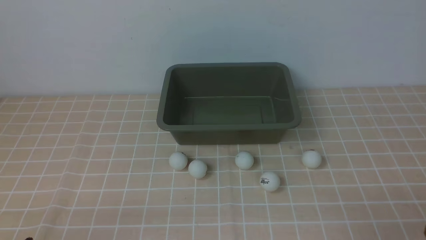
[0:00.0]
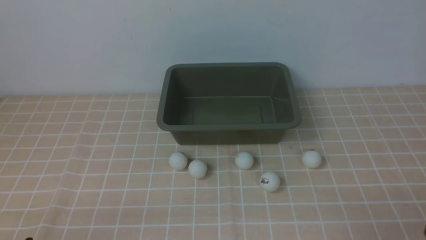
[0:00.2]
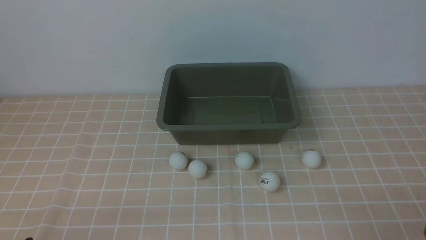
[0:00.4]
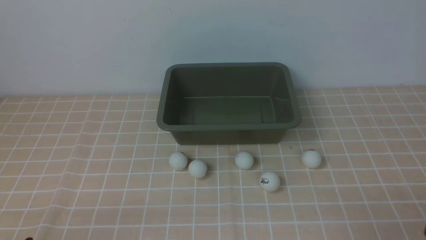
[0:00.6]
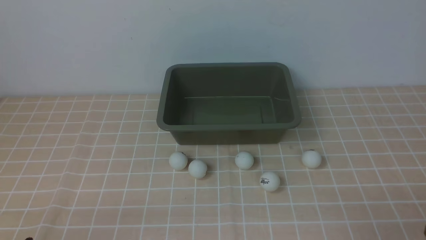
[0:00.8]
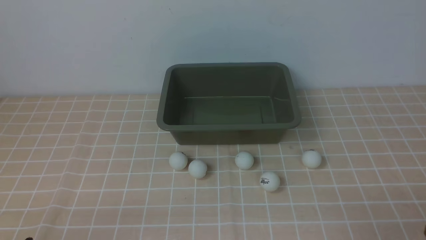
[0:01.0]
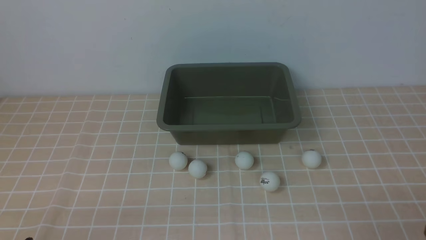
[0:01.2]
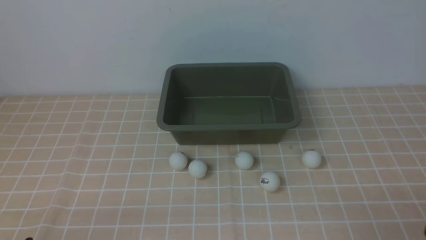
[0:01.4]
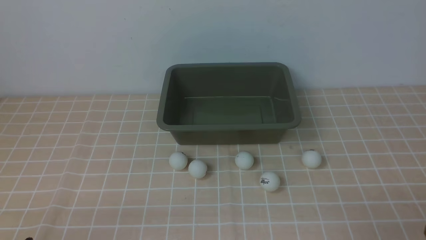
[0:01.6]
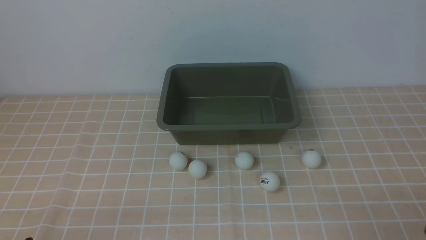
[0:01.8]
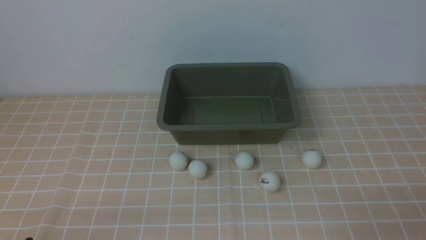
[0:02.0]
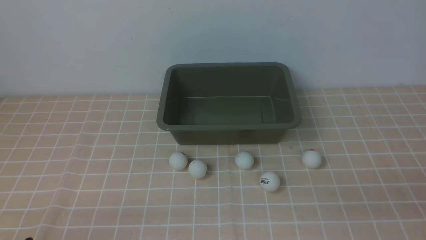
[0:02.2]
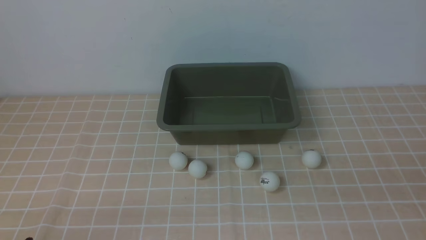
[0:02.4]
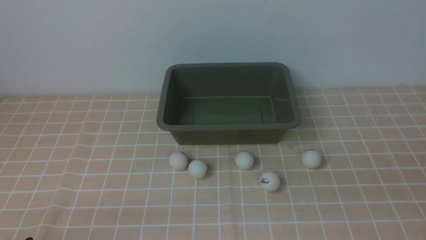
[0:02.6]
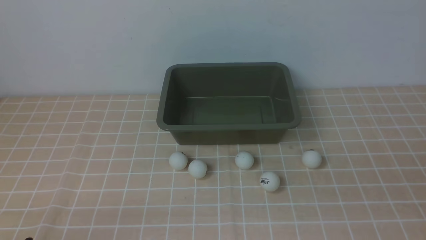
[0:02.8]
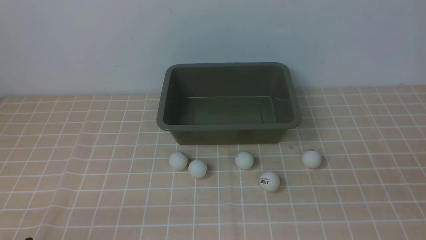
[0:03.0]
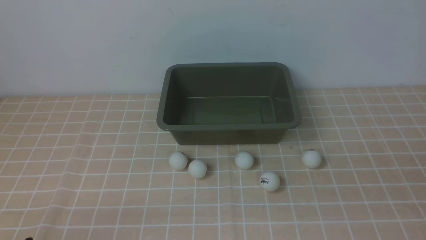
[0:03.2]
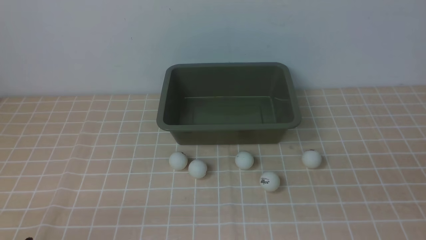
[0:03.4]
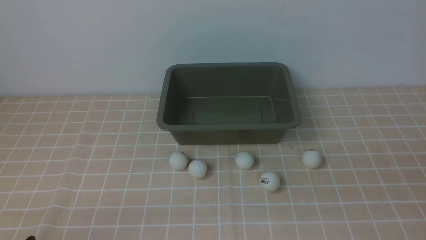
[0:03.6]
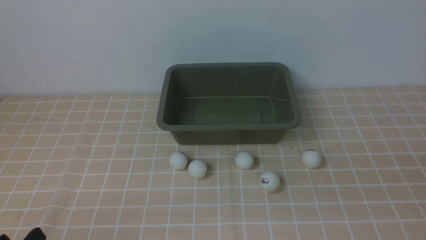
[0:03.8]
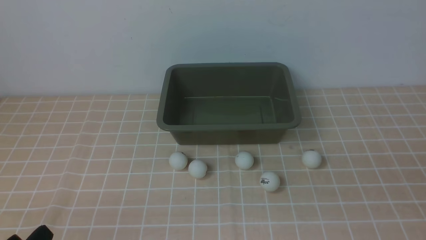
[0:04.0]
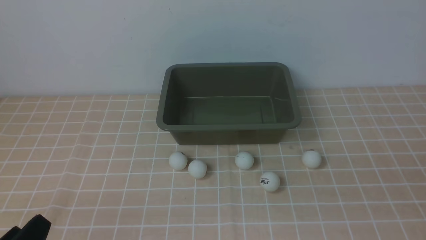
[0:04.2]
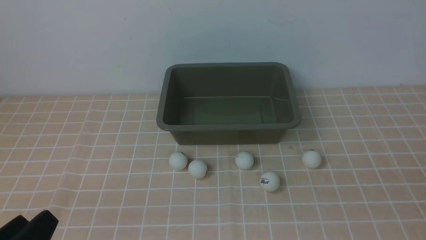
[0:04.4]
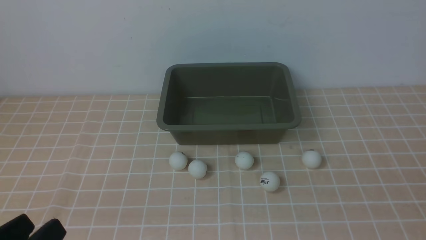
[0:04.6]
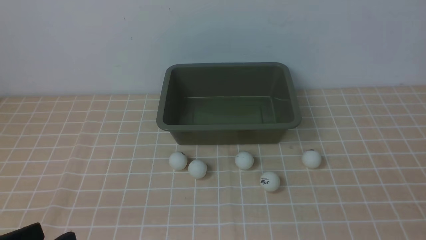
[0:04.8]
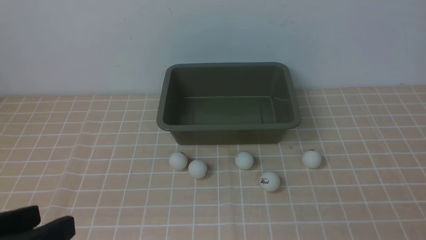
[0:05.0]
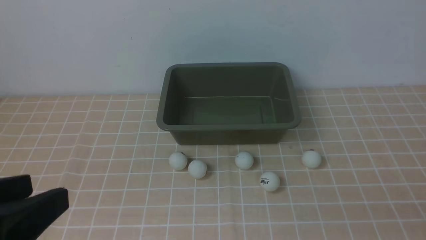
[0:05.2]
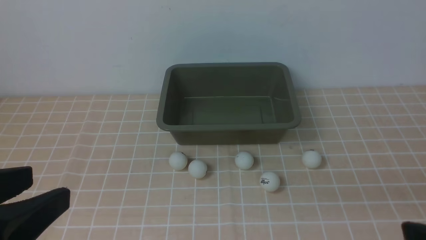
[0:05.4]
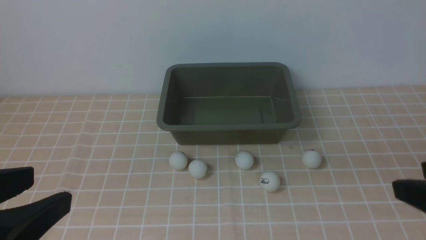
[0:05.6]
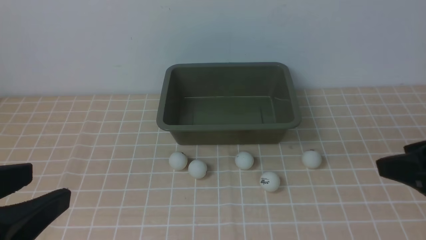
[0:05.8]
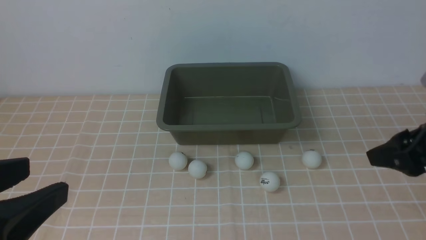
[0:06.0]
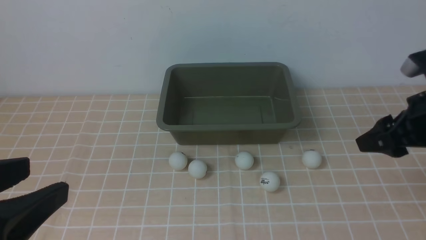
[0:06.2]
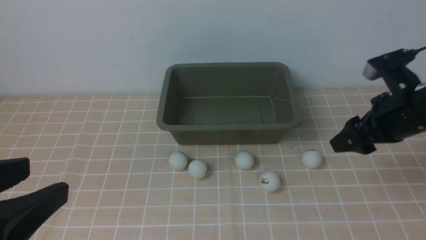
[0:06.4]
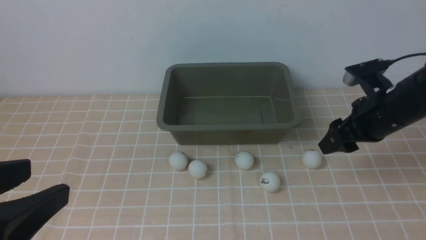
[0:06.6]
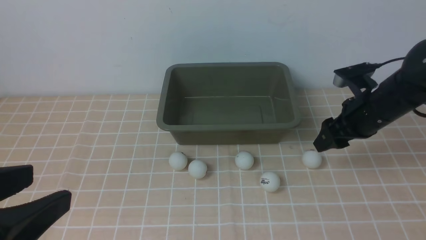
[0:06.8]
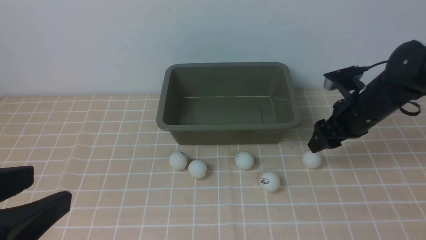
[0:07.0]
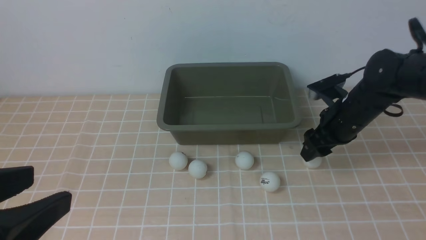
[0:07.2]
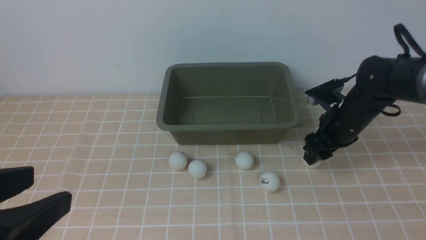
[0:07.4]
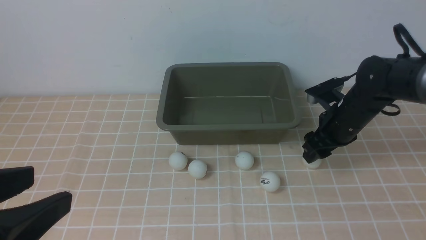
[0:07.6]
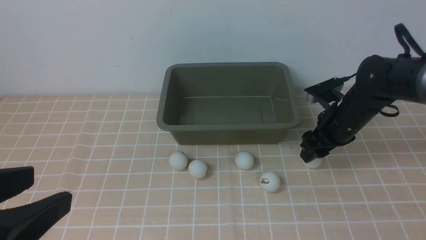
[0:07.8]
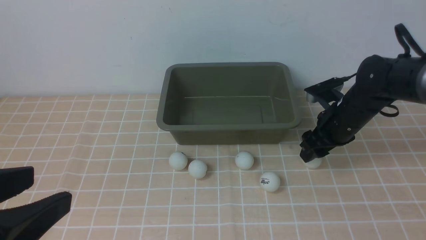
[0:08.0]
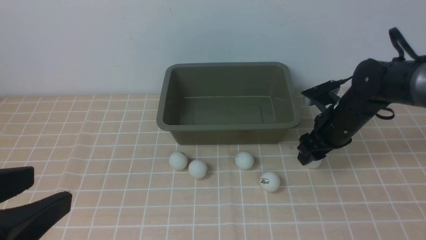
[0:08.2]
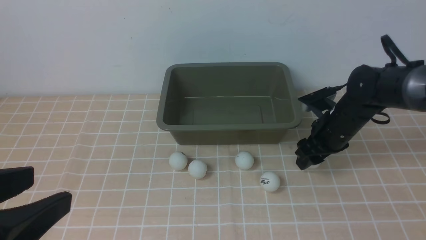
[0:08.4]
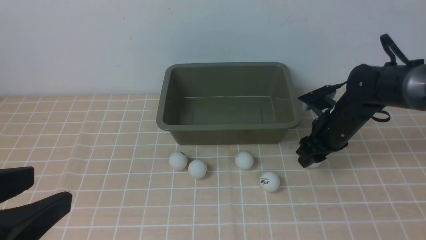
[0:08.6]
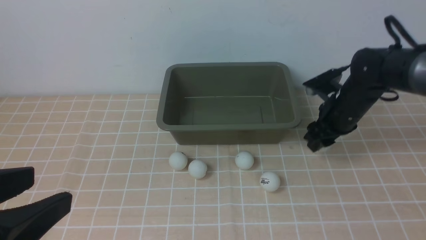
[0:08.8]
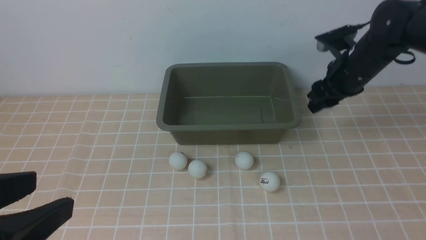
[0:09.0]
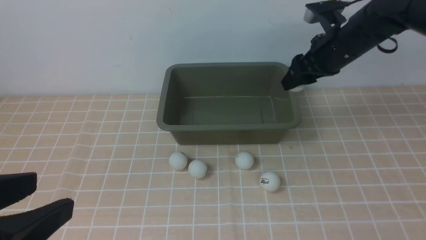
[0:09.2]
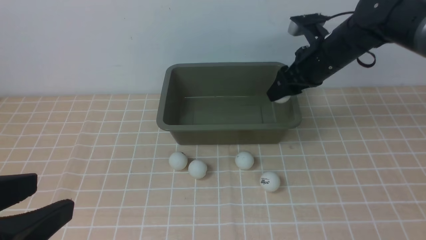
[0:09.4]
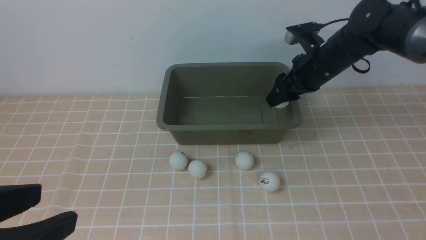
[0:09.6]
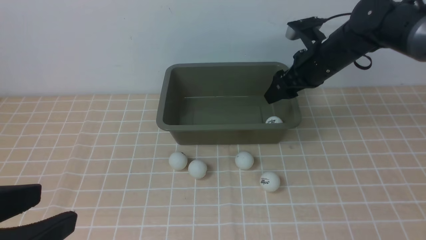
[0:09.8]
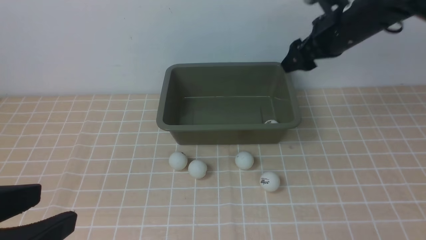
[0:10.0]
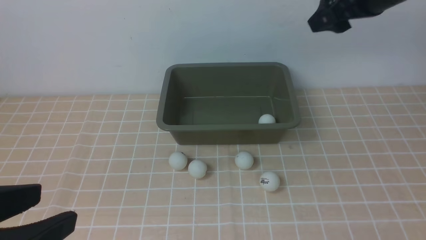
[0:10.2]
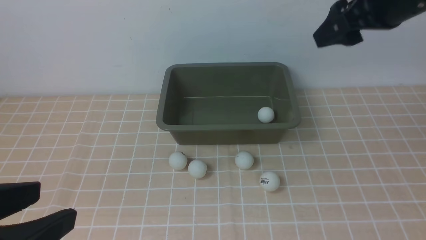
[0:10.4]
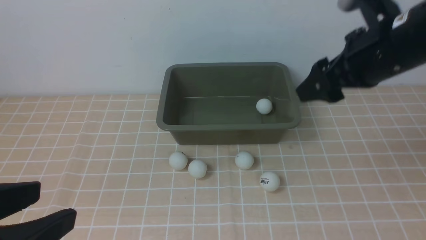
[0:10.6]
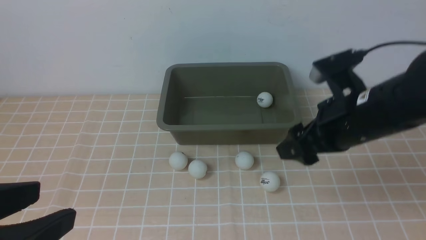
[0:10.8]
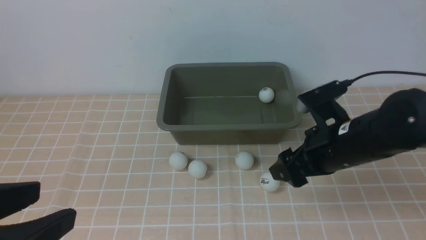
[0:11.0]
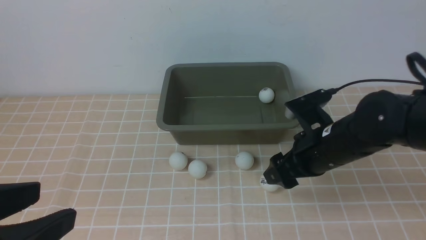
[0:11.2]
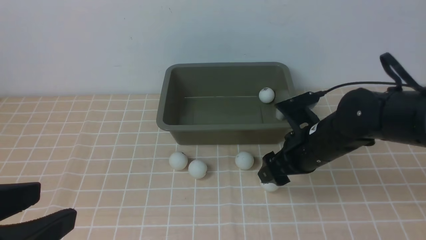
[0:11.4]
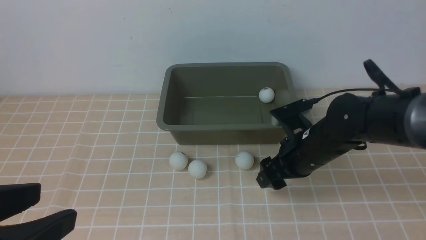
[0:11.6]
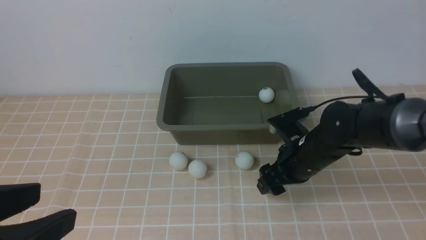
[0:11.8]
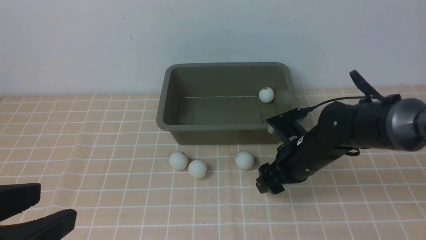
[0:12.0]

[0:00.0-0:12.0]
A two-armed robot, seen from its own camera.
Step, 0:00.0 to 0:08.2: use the right arm to clamp the table tennis ball closest to it.
Step, 0:08.4 to 0:10.0: use the right arm to put the table tennis ball into the box.
0:00.0 to 0:01.6: The two grippers keep their place.
0:03.0 to 0:04.4: The left gripper heads upward, covering roughly 5 cm.
0:04.4 to 0:06.0: The right gripper travels forward by some 20 cm. Meanwhile the left gripper moves upward, about 15 cm.
0:06.0 to 0:07.6: The right gripper goes some 20 cm forward and downward.
0:07.6 to 0:09.0: The right gripper travels upward by approximately 5 cm, and closes its fingers.
0:09.0 to 0:10.4: The right gripper travels upward and backward by roughly 15 cm, and opens up.
0:10.4 to 0:12.0: The right gripper travels downward by approximately 25 cm, and closes its fingers.

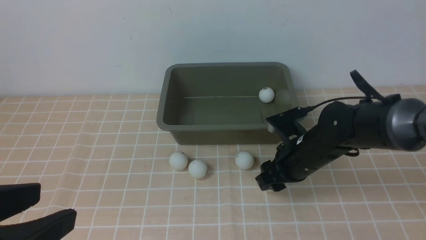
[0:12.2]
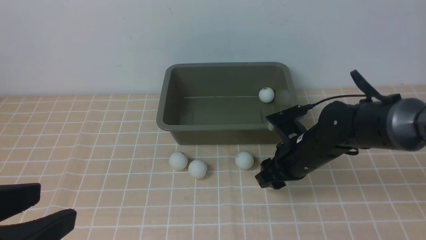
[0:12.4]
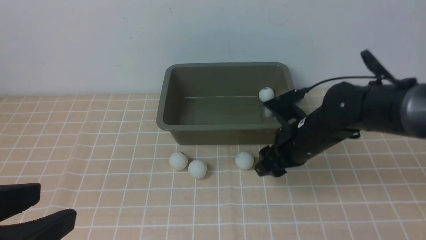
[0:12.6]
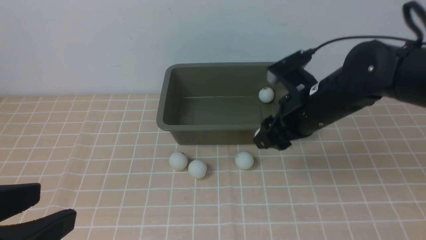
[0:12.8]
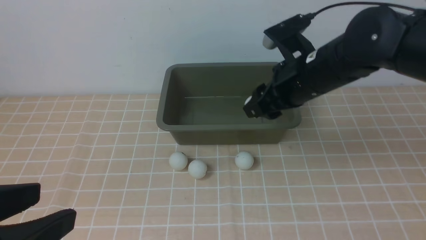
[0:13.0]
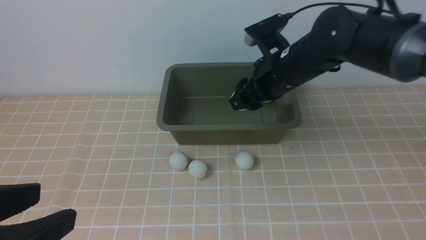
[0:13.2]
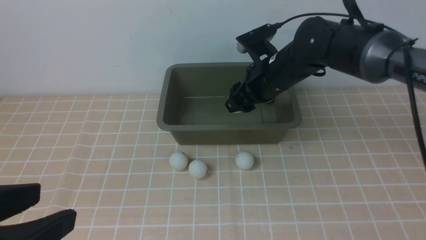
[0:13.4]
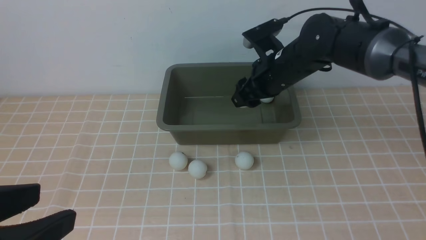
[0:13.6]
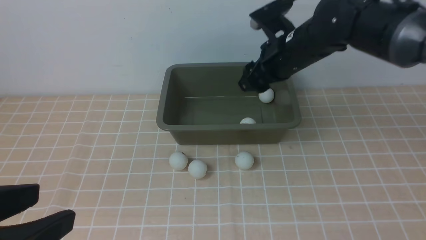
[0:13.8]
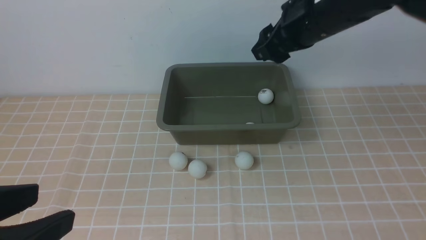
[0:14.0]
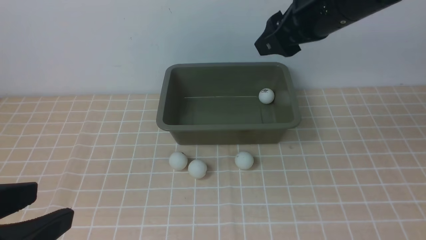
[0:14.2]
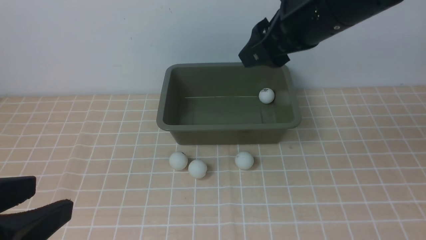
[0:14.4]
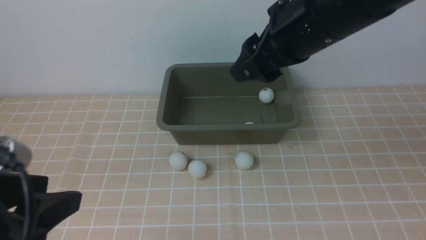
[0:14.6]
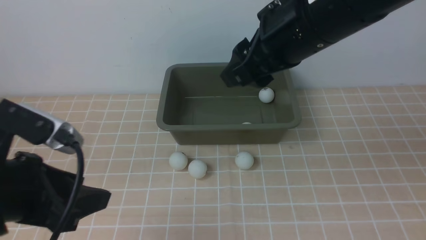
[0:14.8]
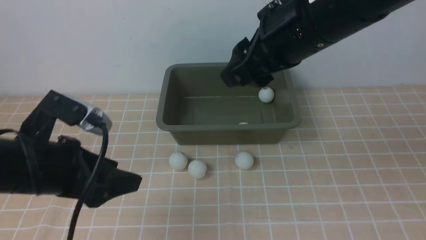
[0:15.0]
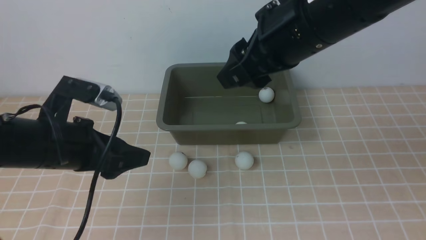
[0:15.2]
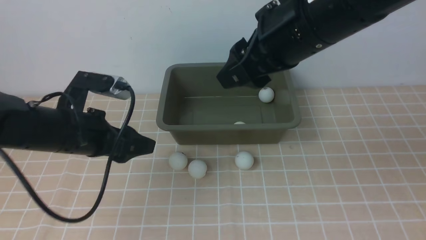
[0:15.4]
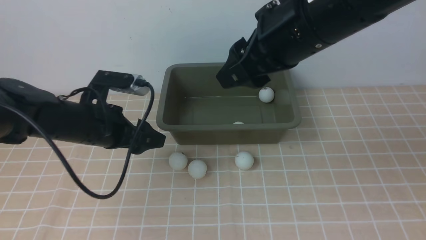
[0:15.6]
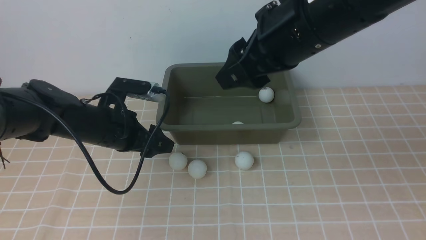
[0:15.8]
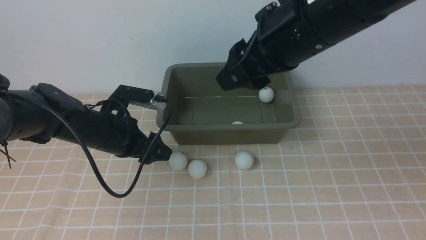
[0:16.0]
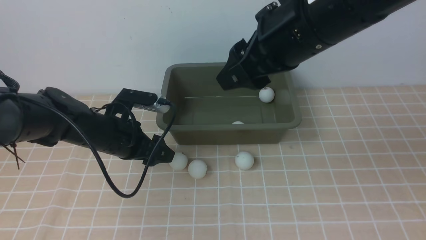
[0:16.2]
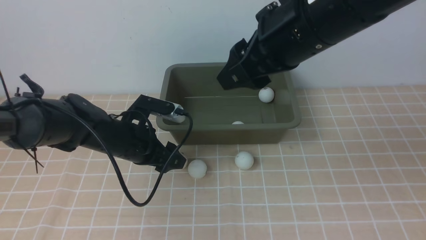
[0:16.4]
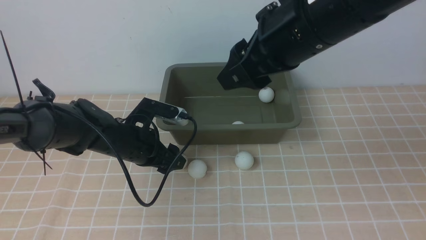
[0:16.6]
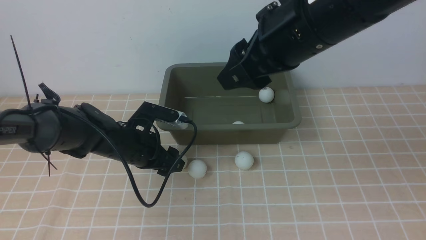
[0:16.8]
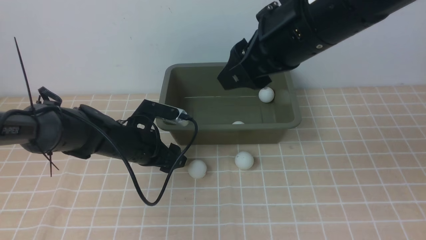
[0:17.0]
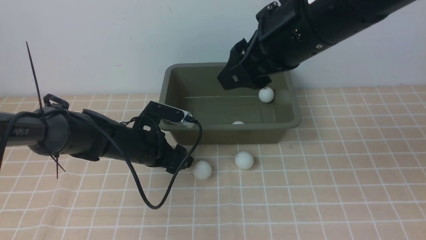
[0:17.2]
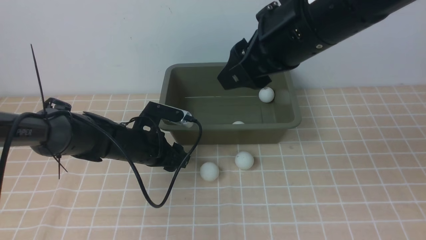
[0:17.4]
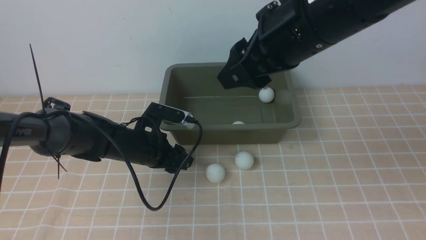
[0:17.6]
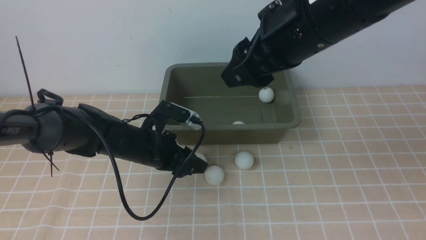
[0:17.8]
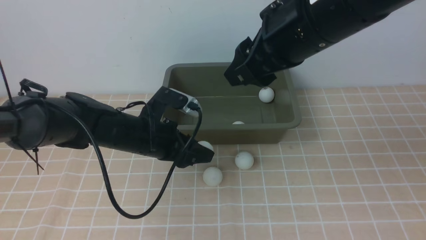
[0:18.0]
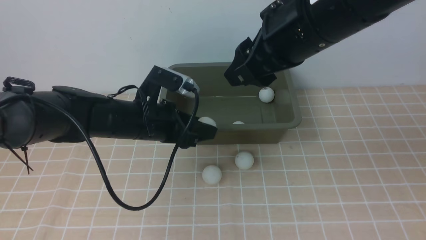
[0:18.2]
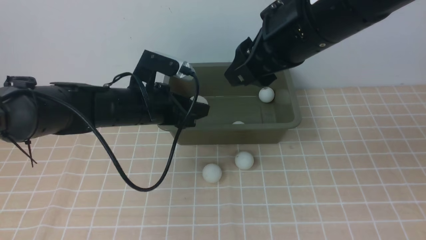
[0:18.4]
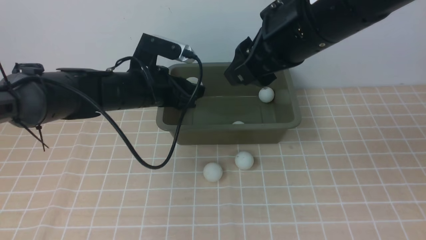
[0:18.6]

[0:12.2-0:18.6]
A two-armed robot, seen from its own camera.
Step, 0:13.0 to 0:14.0: use the right arm to put the table tennis ball into the box.
Step, 0:14.2 to 0:18.0: use the left arm to clamp the table tennis ball closest to it.
0:12.2 to 0:13.8: The right gripper shifts some 15 cm upward and forward.
0:13.8 to 0:15.4: The right gripper moves backward and upward, approximately 15 cm, while the left gripper is displaced forward and downward by roughly 25 cm, and opens its fingers.
0:15.4 to 0:17.0: The left gripper goes roughly 15 cm downward, forward and to the right.
0:17.0 to 0:18.6: The left gripper is displaced upward by approximately 10 cm, and closes its fingers.
